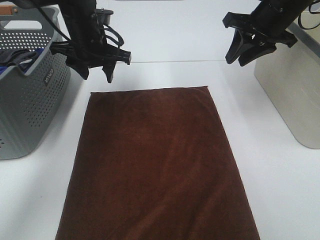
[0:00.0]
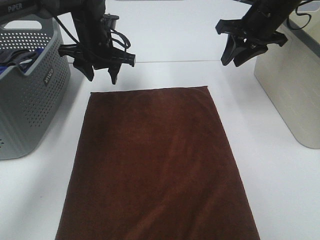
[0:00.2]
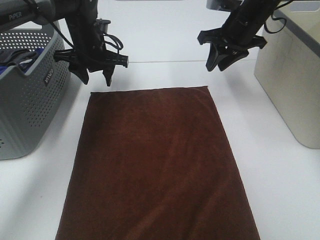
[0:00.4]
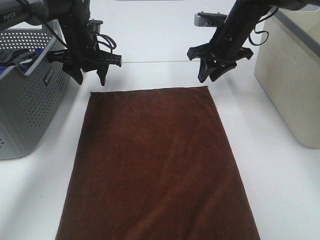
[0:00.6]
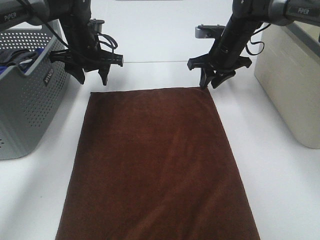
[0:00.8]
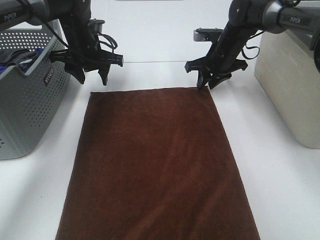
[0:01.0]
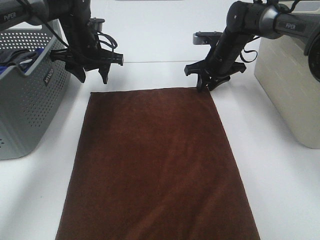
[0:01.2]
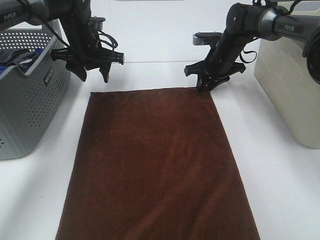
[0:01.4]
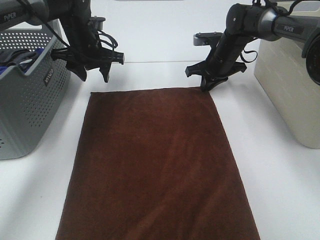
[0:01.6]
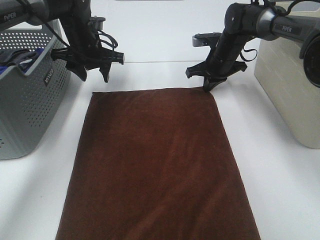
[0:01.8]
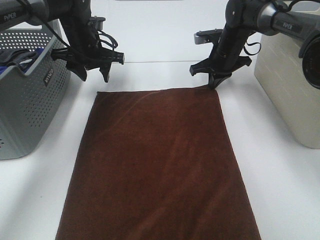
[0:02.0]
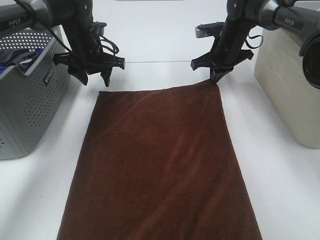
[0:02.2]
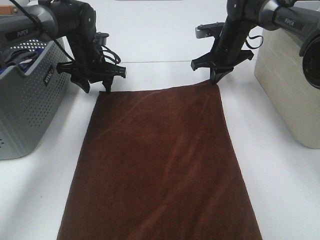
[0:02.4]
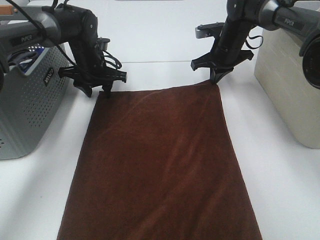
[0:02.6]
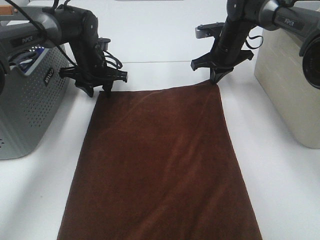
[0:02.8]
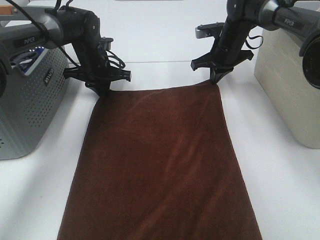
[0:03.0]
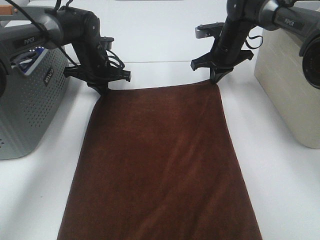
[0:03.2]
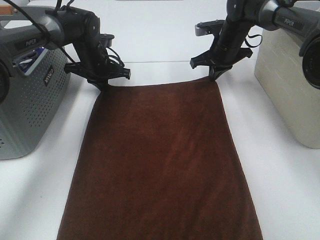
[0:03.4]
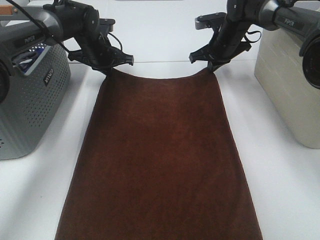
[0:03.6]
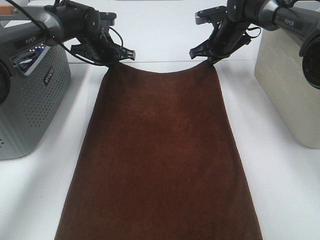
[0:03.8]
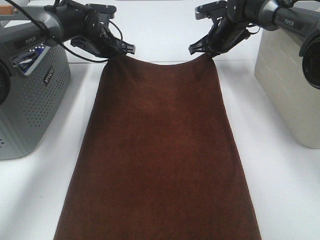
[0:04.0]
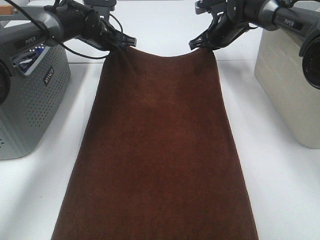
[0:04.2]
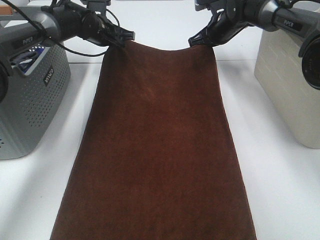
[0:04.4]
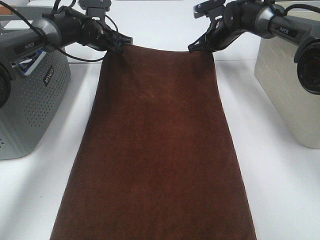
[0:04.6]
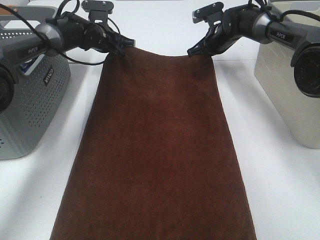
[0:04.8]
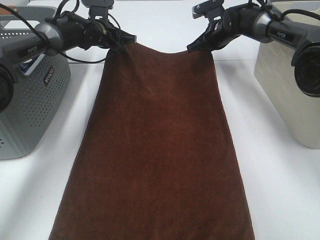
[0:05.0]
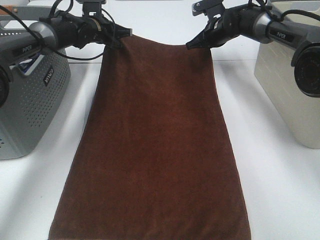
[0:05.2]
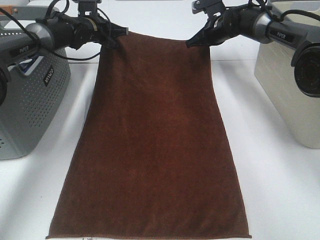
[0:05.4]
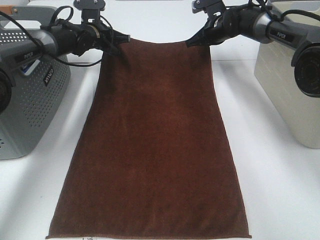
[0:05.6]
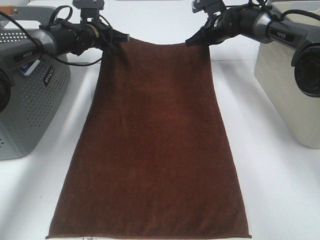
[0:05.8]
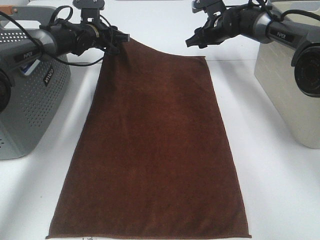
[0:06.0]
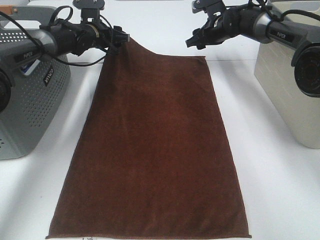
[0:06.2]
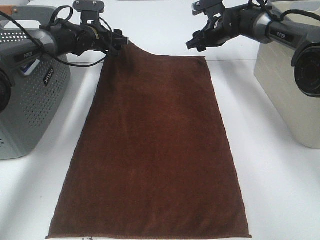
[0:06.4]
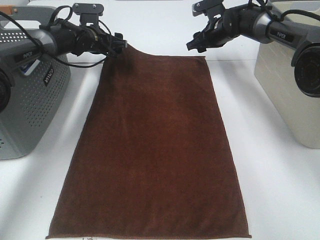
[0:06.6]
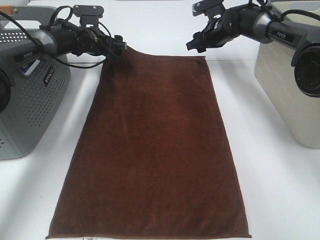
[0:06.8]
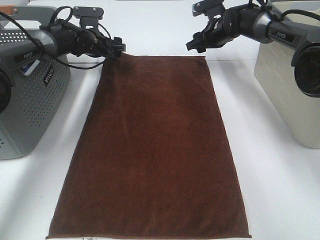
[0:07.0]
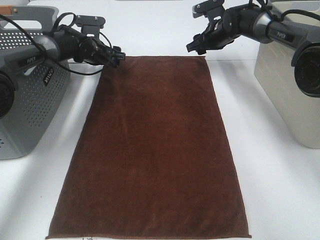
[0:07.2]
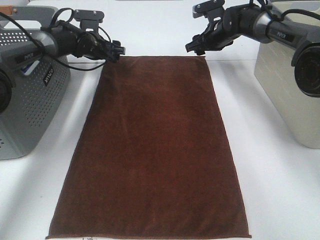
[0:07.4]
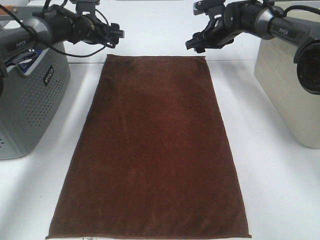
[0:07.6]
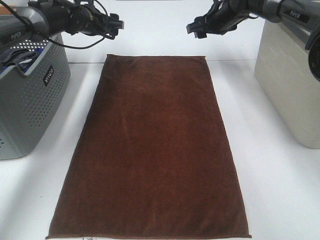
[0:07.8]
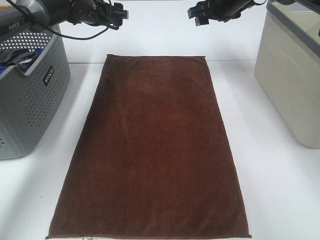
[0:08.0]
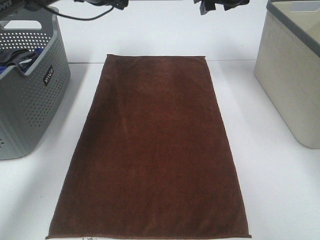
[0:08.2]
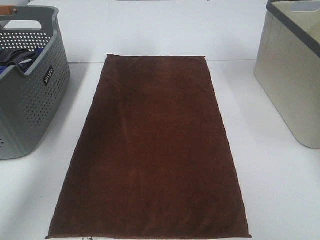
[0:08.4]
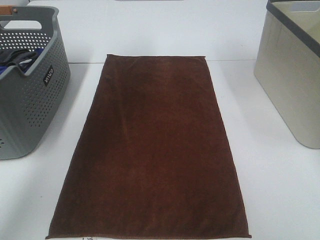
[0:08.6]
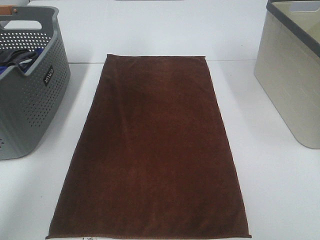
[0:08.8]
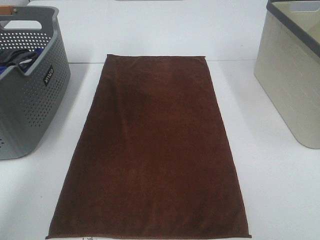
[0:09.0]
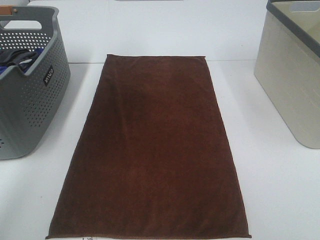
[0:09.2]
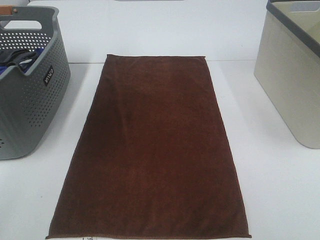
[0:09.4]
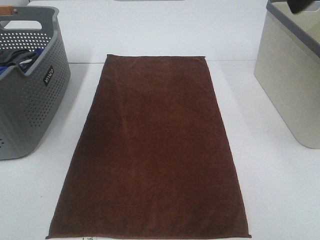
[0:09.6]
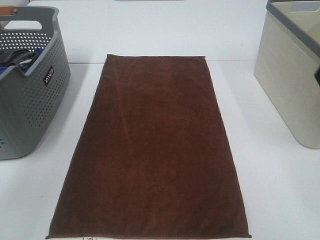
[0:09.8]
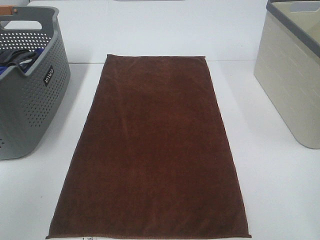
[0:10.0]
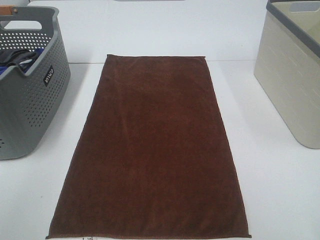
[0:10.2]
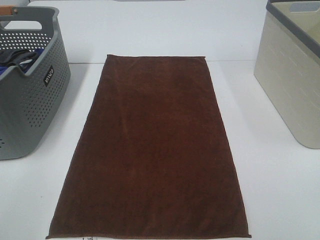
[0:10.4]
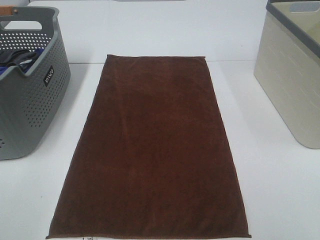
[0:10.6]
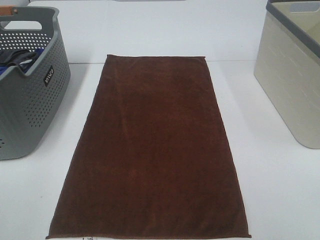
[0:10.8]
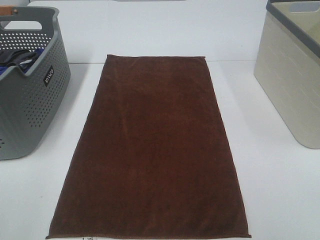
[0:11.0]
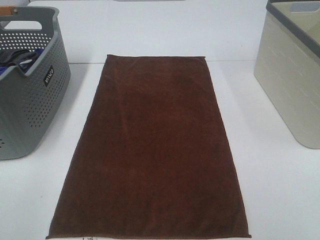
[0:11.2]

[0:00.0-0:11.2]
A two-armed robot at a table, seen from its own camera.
Task of the whole recording: Remove the towel and place it.
0:00.0 to 0:01.6: The left gripper shifts by about 5 cm. The right gripper shifts about 20 cm downward, forward and to the left, and closes its fingers.
0:01.6 to 0:03.2: The left gripper shifts approximately 5 cm downward, and closes.
0:03.2 to 0:04.8: The left gripper travels forward by about 5 cm.
0:04.8 to 0:06.4: The right gripper opens up; the left gripper opens up.
0:06.4 to 0:08.0: The grippers both shift upward by about 10 cm.
0:08.0 to 0:09.6: Both grippers travel together backward and upward, about 35 cm.
0:09.6 to 0:11.2: The left gripper shifts roughly 25 cm backward and downward.

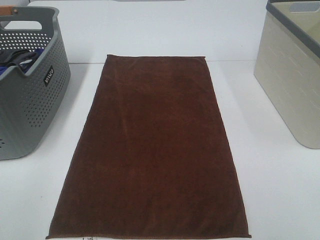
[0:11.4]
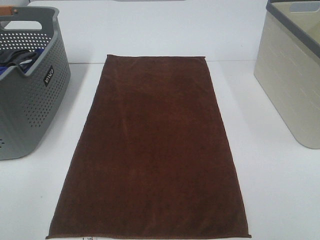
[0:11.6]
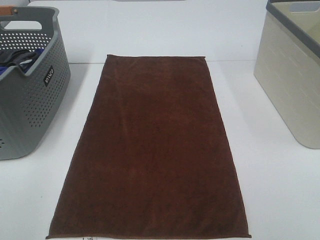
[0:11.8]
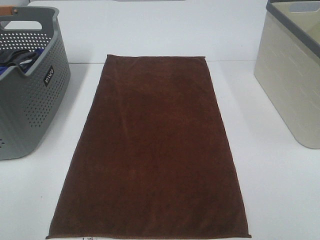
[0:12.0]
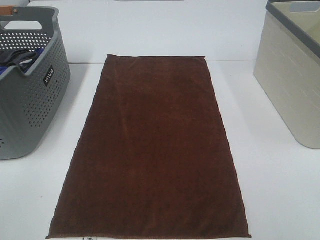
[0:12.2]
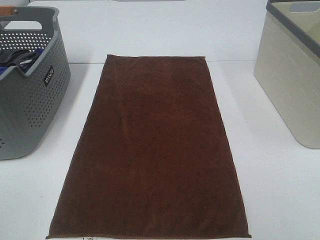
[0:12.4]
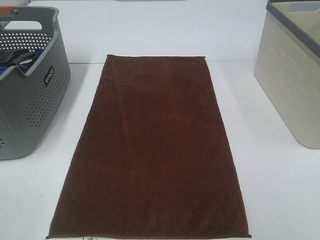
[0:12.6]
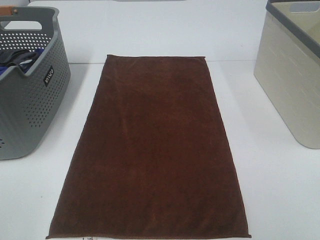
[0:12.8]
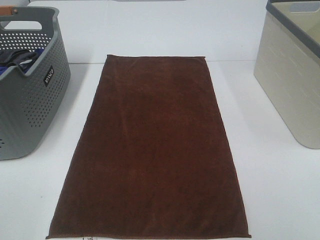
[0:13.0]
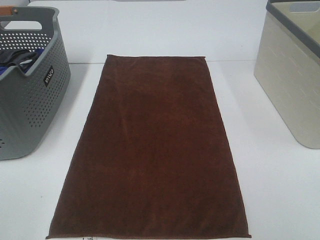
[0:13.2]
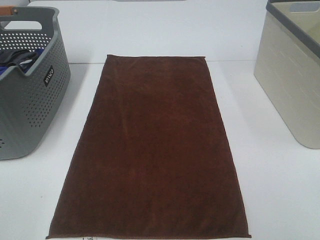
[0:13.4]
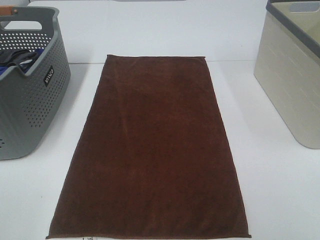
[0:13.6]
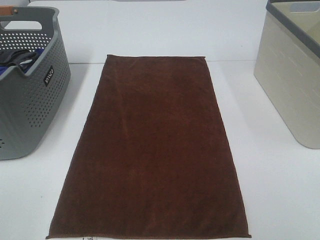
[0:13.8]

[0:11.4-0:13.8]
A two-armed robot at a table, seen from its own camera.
Task of the whole recording: Remove the towel and place it.
0:12.6 to 0:13.8: Neither gripper changes place.

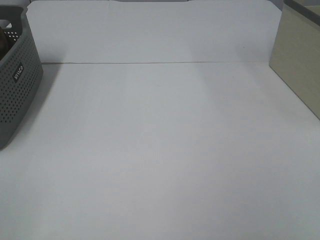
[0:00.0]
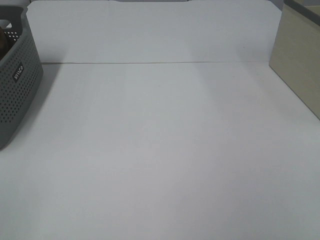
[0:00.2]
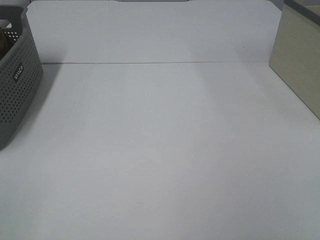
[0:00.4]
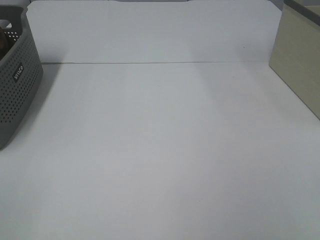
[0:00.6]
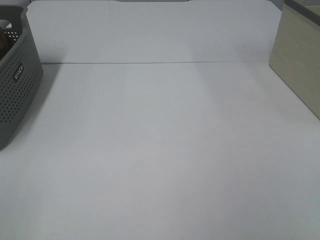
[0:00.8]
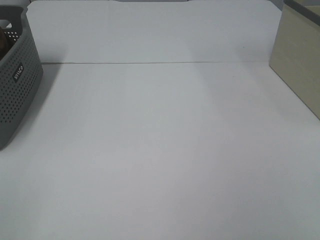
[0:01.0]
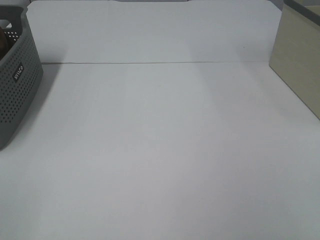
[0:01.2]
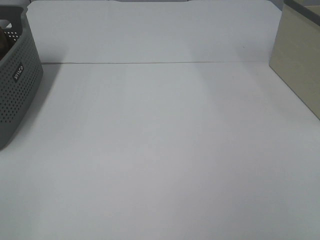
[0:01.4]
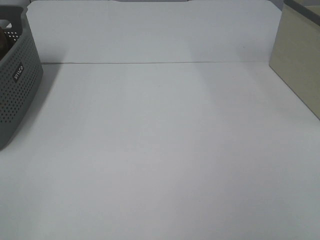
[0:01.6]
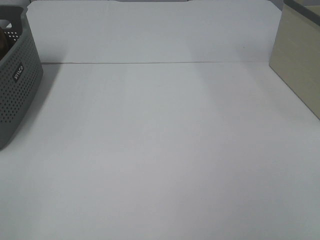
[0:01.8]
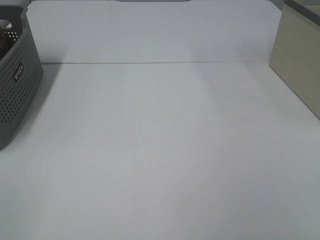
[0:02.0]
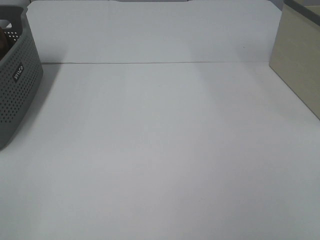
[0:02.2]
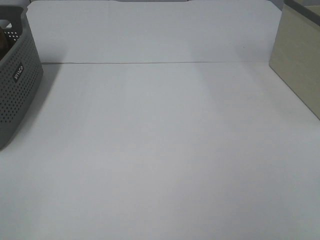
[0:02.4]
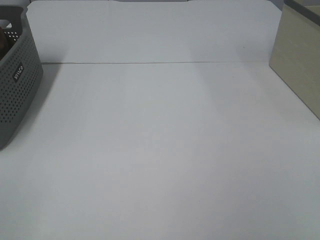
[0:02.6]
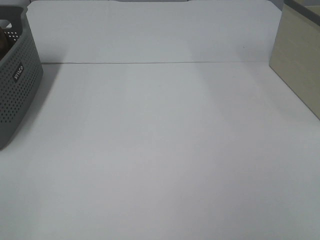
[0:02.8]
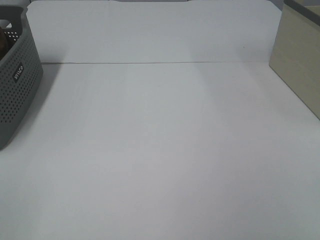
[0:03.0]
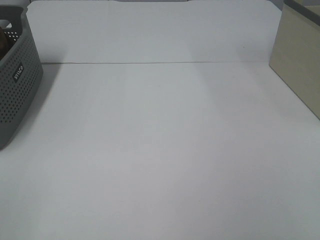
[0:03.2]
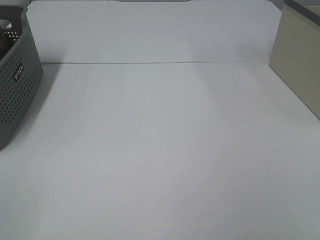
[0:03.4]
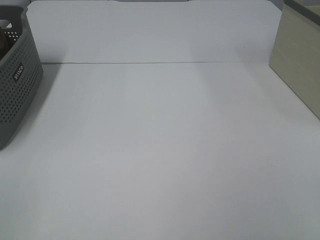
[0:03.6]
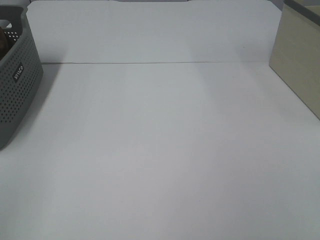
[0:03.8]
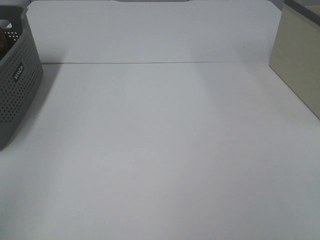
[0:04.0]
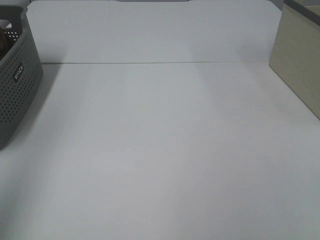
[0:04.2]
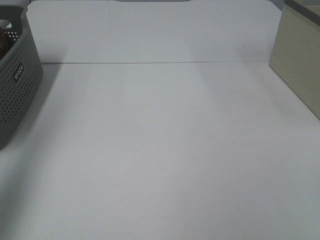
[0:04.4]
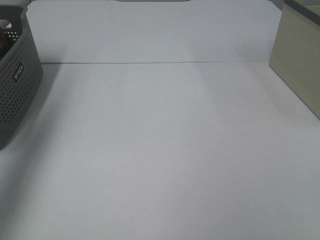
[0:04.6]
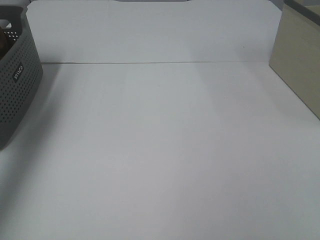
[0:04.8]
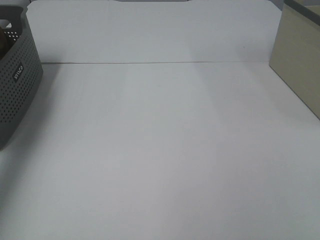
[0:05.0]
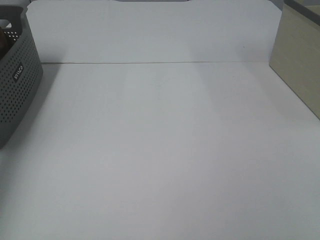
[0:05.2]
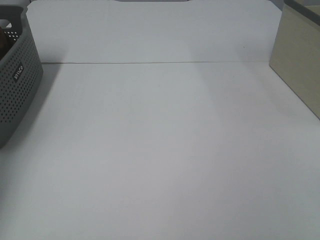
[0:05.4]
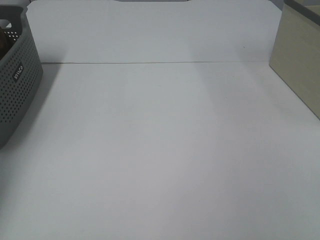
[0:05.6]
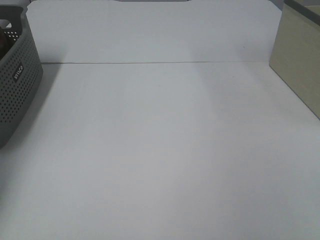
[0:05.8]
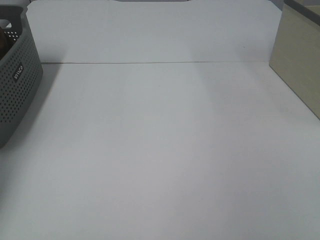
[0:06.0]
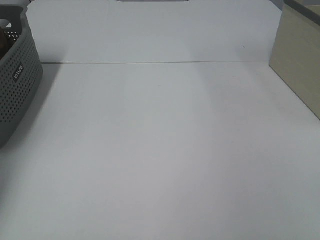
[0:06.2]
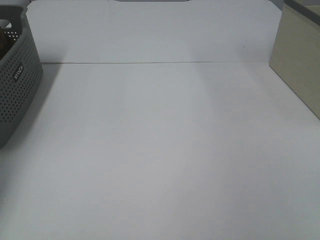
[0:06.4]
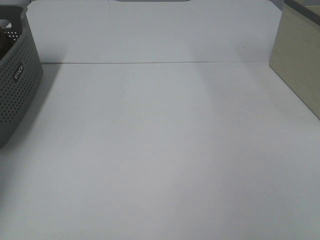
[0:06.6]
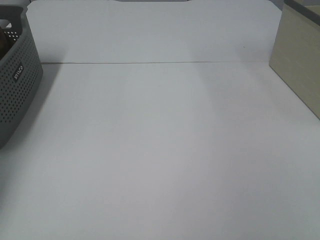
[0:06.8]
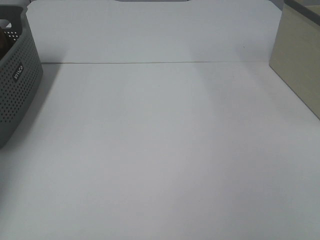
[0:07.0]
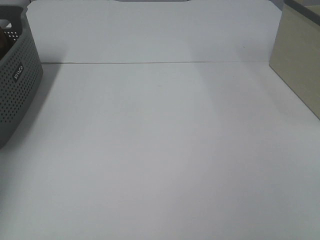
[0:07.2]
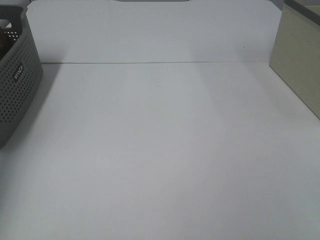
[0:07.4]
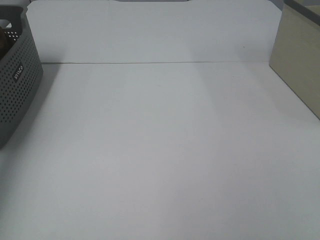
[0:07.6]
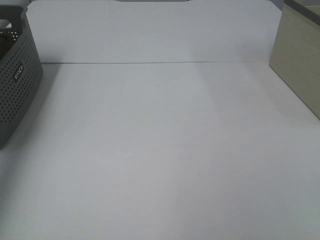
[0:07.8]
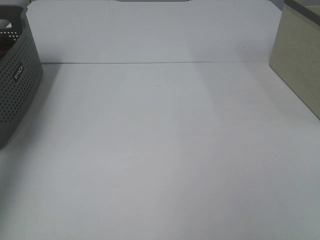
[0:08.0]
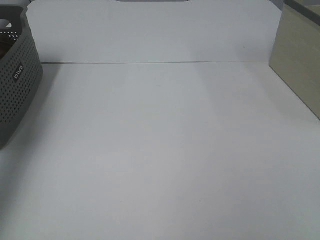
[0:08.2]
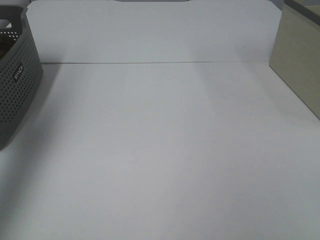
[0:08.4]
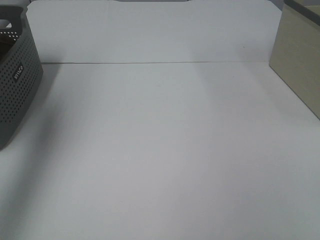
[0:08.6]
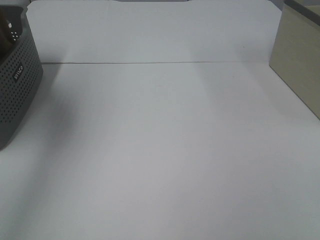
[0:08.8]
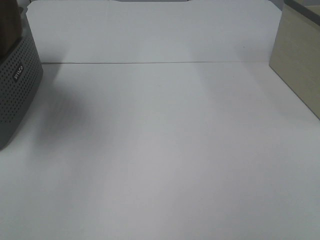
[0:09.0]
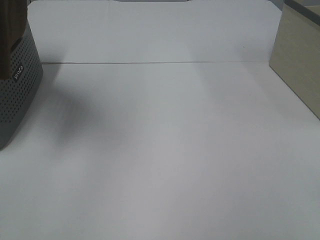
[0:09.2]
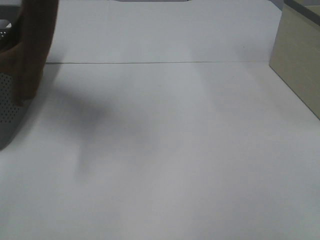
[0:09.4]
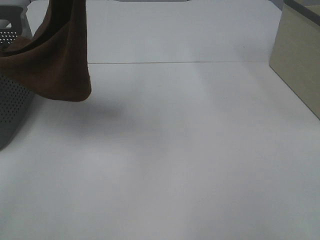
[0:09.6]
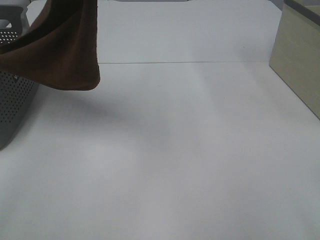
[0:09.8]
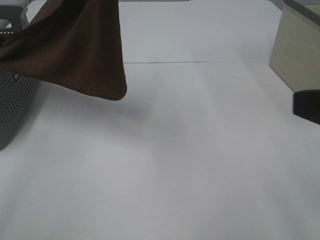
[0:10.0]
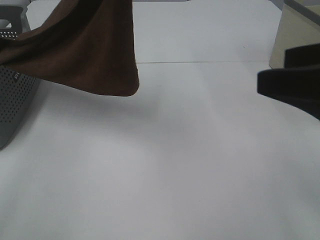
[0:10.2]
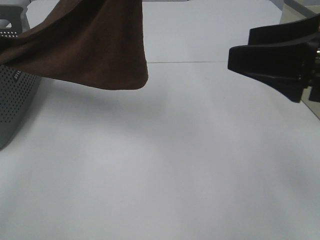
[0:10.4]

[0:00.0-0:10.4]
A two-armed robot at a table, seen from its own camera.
Task of the whole recording: Remove the towel and place it.
0:00.0 to 0:03.0: Neither gripper changes place.
0:03.0 to 0:04.4: The left gripper moves forward and upward, roughly 25 cm.
0:04.4 to 0:06.0: The left gripper moves forward and downward, about 35 cm.
0:07.4 to 0:09.0: The left gripper goes roughly 30 cm upward, to the right and backward.
0:09.0 to 0:10.4: The left gripper travels to the right and downward by roughly 15 cm. Meanwhile the right gripper travels forward and to the left by some 20 cm.
